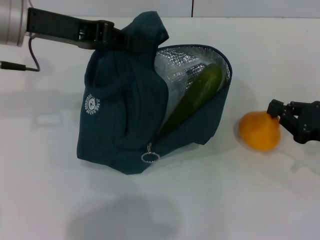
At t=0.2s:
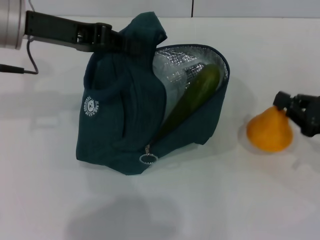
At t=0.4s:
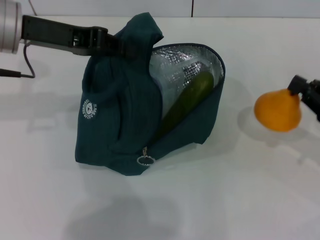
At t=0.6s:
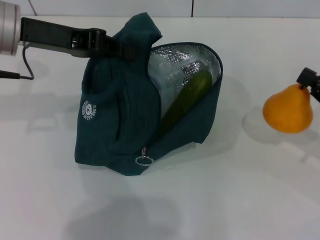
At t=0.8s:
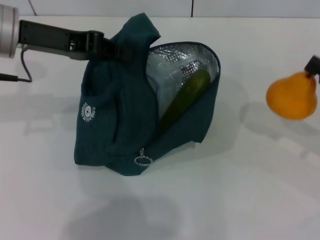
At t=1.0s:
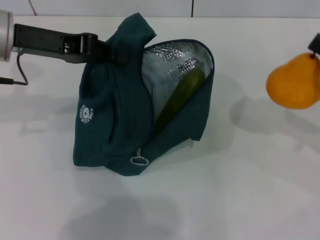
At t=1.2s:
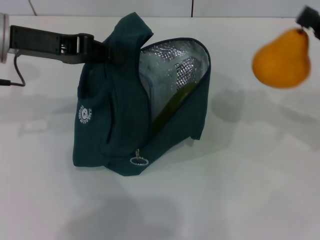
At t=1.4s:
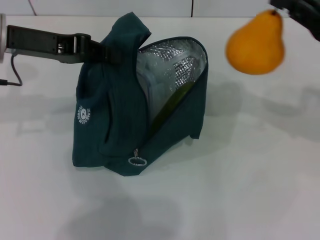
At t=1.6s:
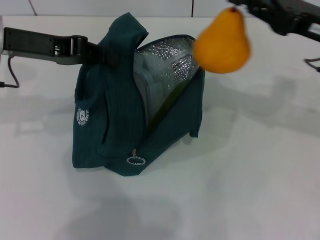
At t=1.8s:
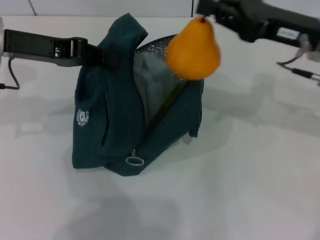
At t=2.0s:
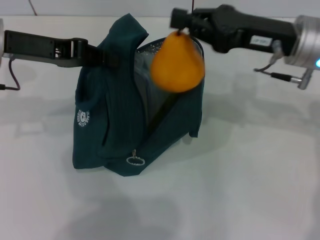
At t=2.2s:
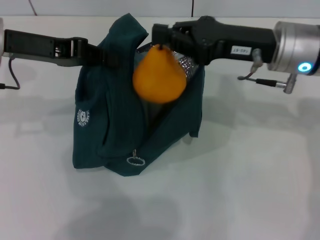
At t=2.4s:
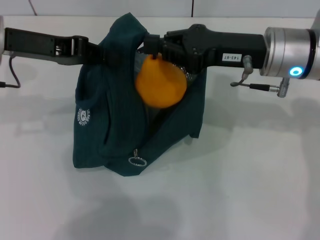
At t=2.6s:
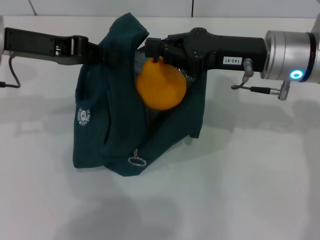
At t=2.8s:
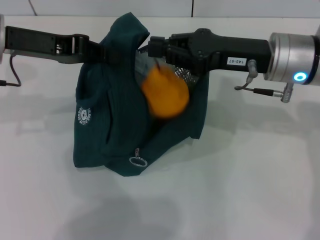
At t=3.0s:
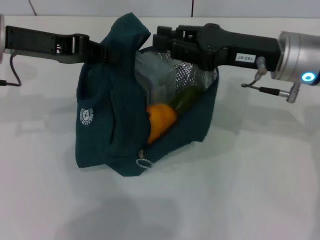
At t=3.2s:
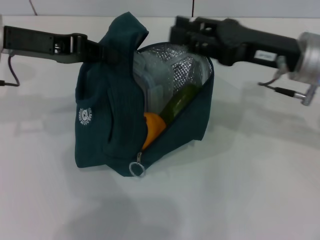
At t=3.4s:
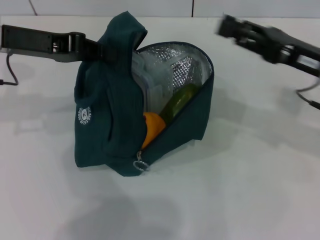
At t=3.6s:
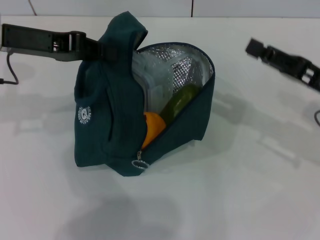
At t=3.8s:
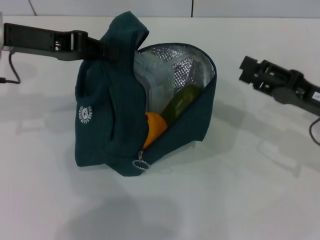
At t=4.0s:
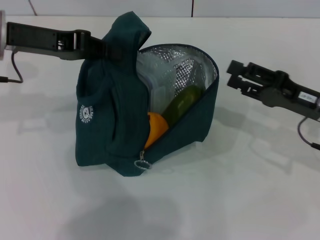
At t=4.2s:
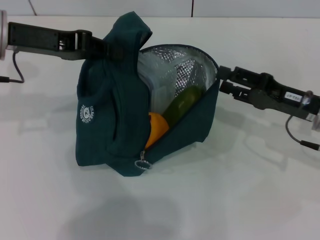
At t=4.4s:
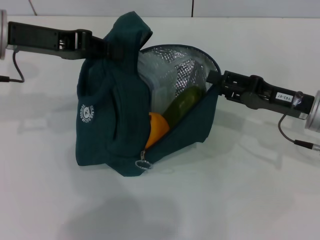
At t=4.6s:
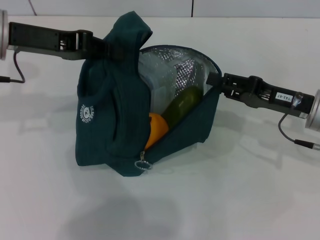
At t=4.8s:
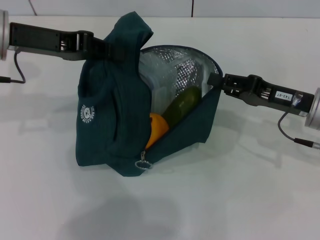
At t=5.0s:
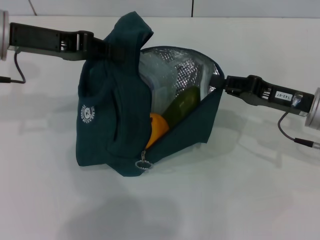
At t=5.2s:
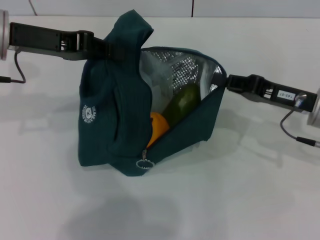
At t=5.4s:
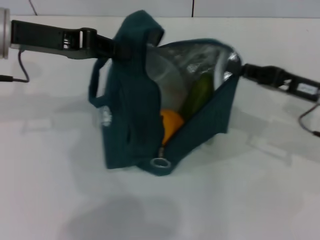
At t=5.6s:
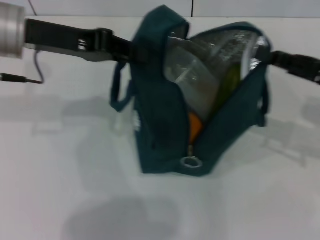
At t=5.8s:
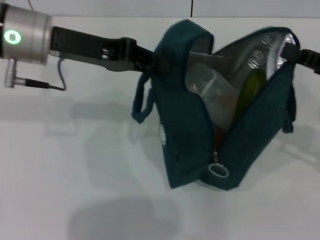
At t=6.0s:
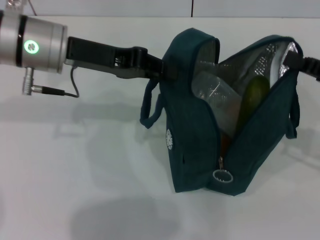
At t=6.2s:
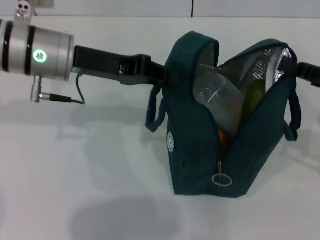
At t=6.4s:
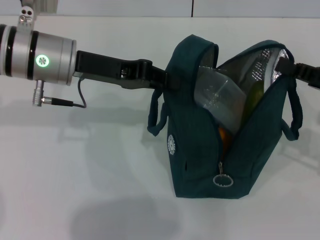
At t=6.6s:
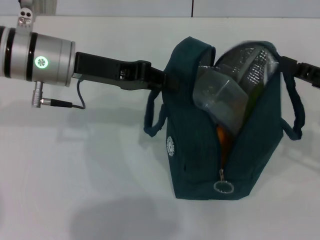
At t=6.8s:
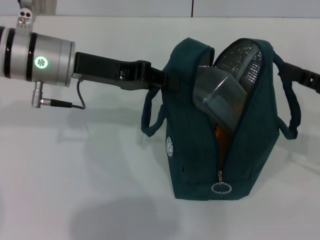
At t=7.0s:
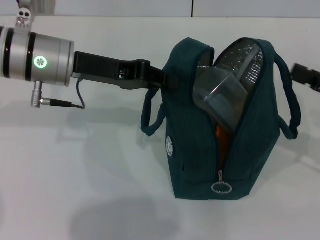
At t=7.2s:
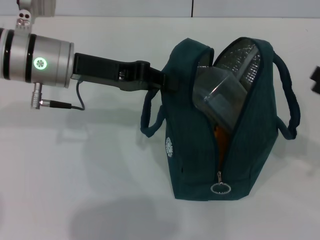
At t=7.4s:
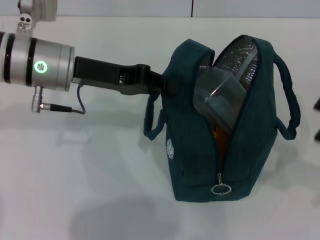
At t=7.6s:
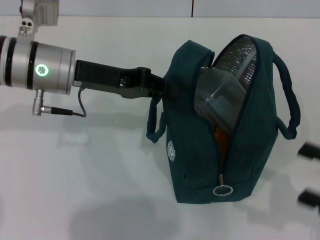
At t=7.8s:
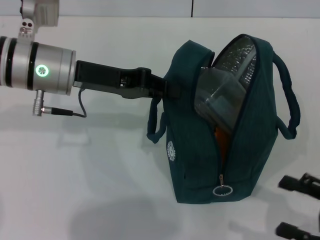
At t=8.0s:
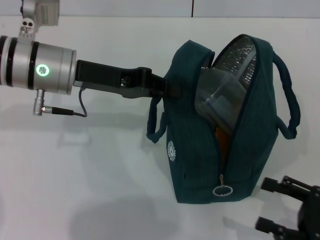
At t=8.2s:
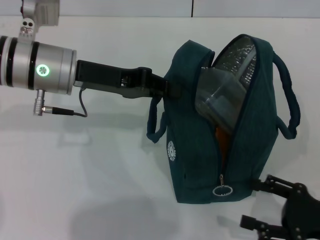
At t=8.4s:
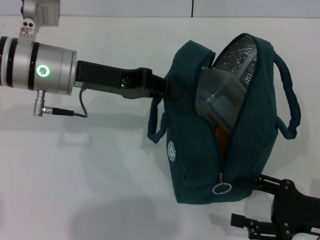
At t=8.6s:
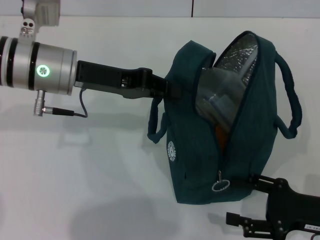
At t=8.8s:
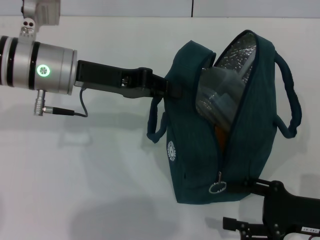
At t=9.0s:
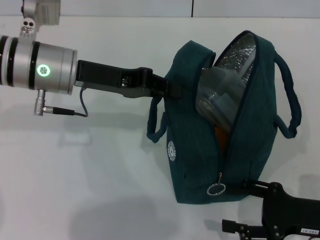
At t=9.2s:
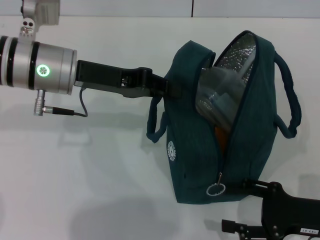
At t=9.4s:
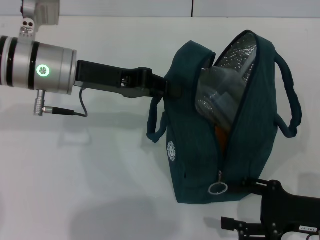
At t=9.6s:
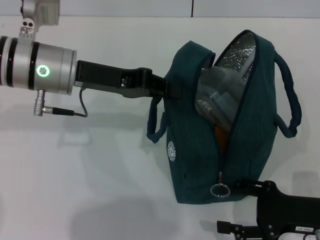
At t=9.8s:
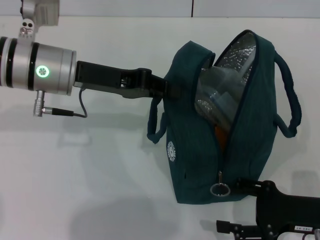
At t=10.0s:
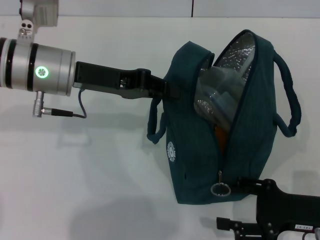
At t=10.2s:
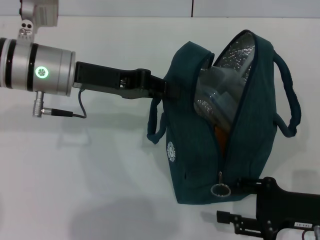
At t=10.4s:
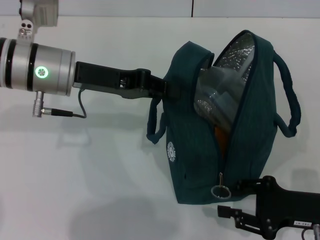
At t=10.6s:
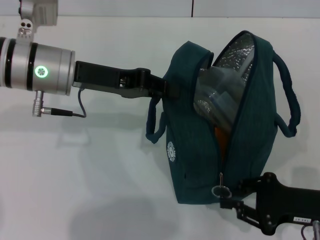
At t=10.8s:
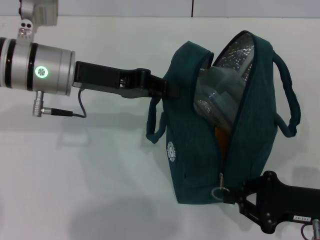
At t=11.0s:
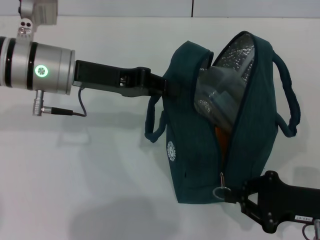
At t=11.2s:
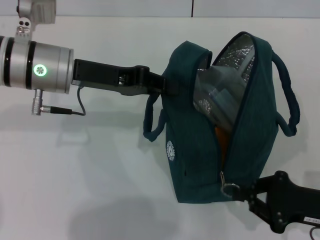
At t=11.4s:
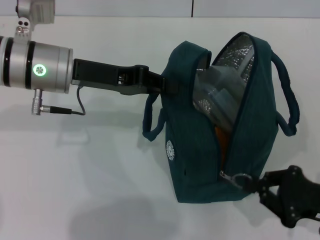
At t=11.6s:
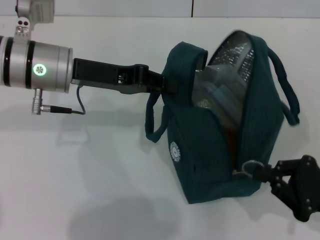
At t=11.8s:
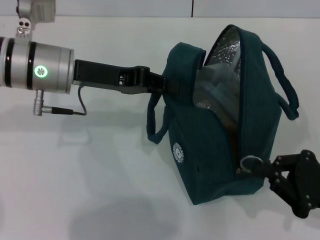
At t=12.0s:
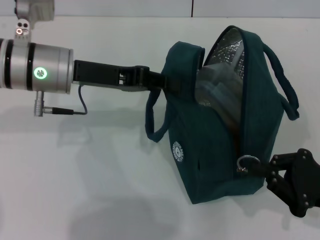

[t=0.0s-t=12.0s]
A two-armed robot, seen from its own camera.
Step, t=3.2s to t=6.6s: Hold the lunch bag with your right hand.
t=0.0s to t=1.6s: The right gripper shifts roughly 15 cm upward, to the left and forward.
t=1.6s to t=3.0s: The right gripper shifts some 5 cm to the left.
t=3.0s to t=4.4s: The right gripper goes some 10 cm downward and to the right, and opens its fingers.
t=4.4s to t=6.0s: The two grippers go roughly 5 cm to the right. The right gripper closes up.
t=6.0s to t=7.6s: The right gripper travels backward by roughly 10 cm, and opens its fingers.
t=7.6s to t=9.0s: The right gripper heads to the left and downward, covering about 10 cm.
t=9.0s to t=10.4s: The two grippers keep their place.
t=10.4s to t=12.0s: The right gripper closes up.

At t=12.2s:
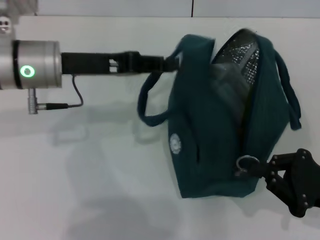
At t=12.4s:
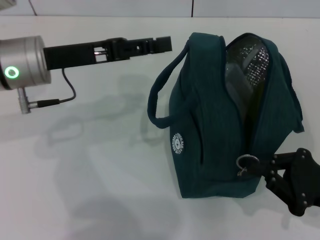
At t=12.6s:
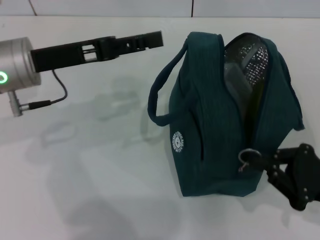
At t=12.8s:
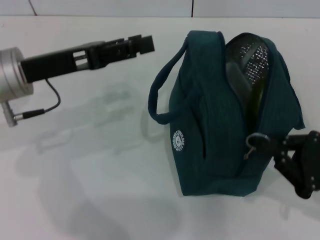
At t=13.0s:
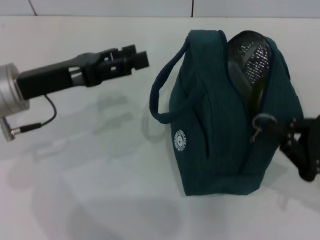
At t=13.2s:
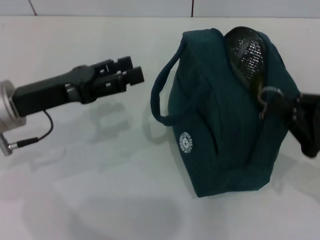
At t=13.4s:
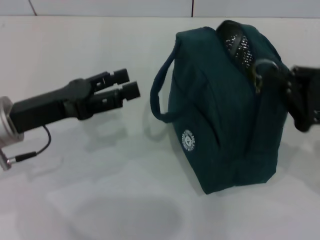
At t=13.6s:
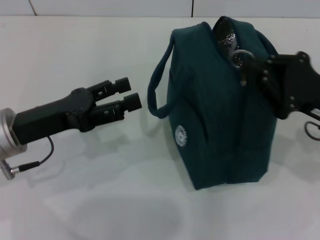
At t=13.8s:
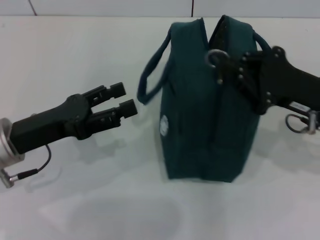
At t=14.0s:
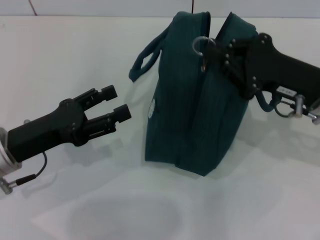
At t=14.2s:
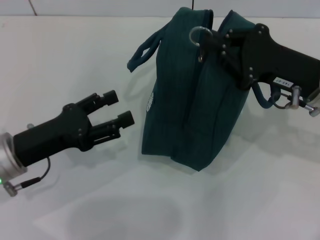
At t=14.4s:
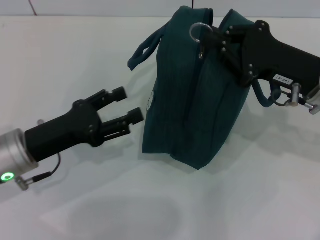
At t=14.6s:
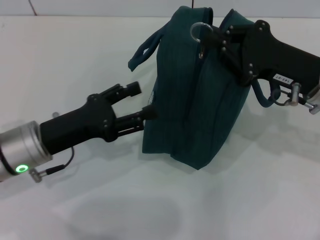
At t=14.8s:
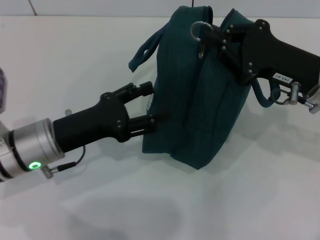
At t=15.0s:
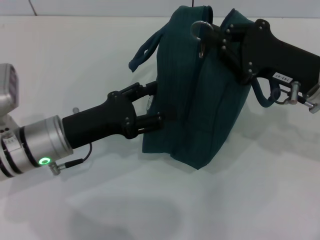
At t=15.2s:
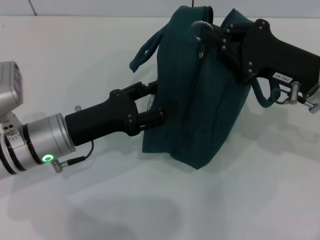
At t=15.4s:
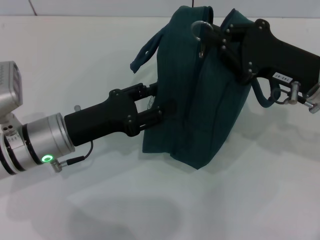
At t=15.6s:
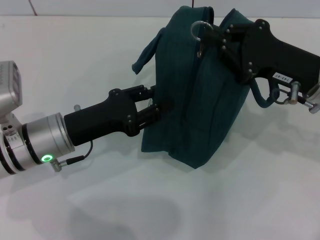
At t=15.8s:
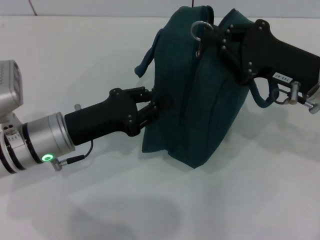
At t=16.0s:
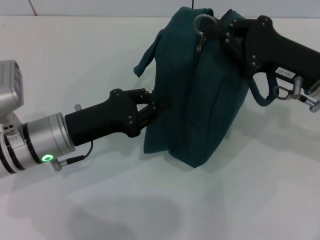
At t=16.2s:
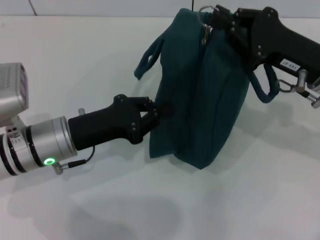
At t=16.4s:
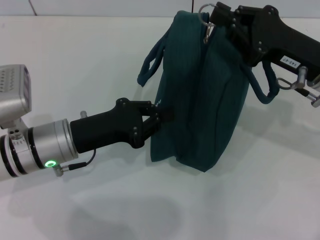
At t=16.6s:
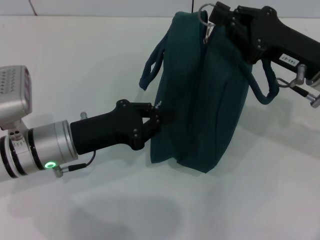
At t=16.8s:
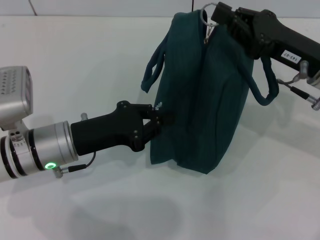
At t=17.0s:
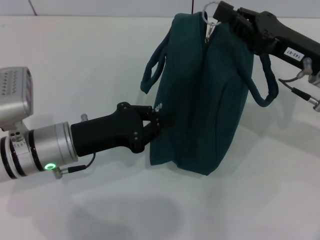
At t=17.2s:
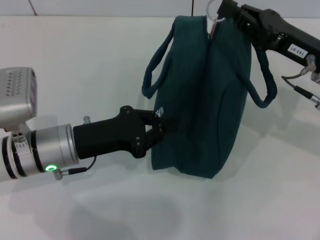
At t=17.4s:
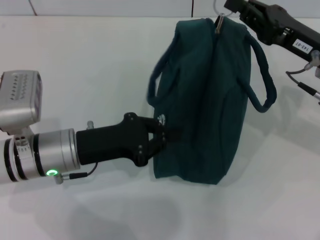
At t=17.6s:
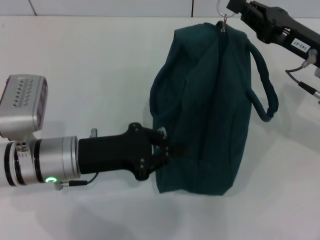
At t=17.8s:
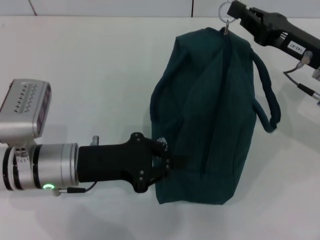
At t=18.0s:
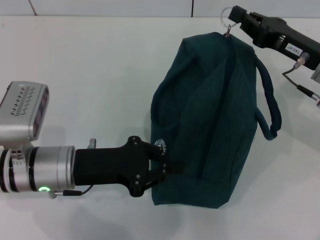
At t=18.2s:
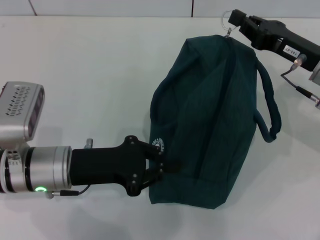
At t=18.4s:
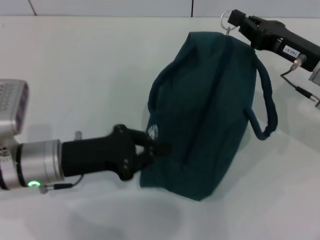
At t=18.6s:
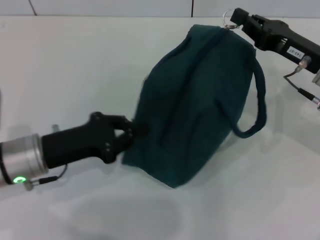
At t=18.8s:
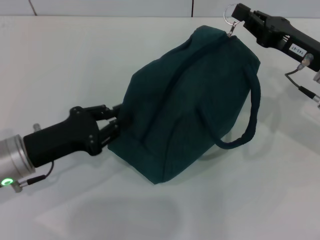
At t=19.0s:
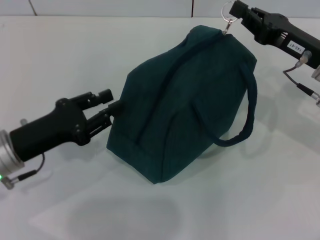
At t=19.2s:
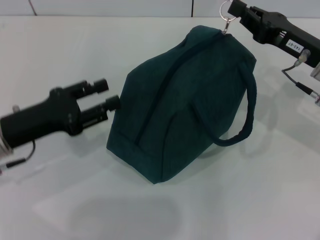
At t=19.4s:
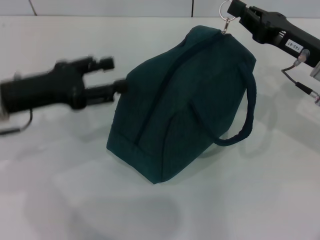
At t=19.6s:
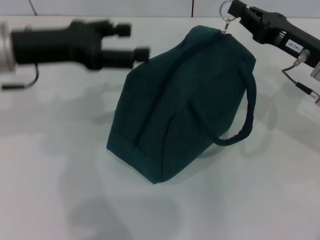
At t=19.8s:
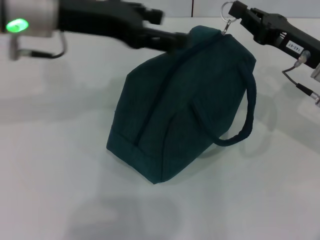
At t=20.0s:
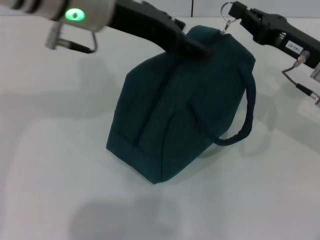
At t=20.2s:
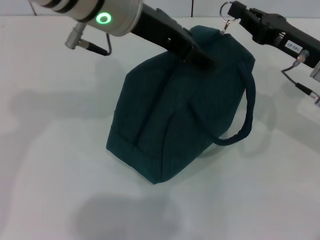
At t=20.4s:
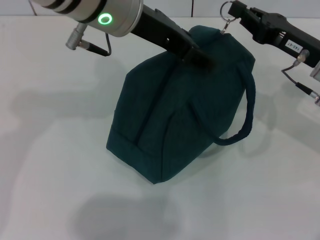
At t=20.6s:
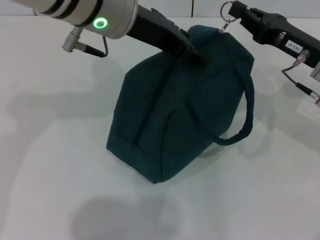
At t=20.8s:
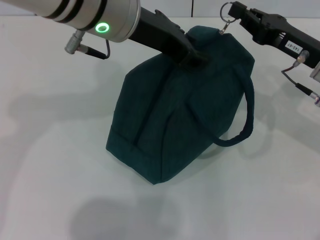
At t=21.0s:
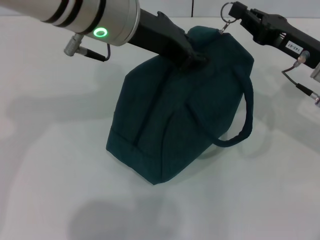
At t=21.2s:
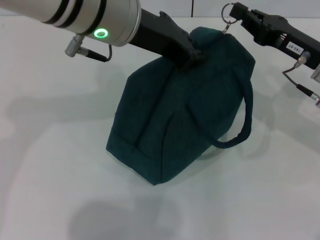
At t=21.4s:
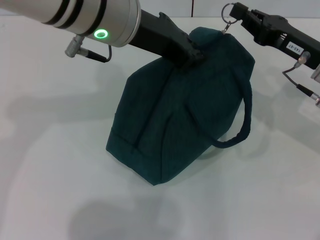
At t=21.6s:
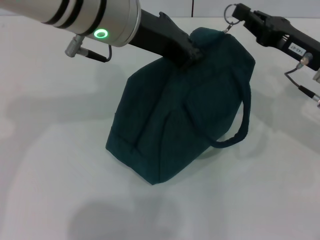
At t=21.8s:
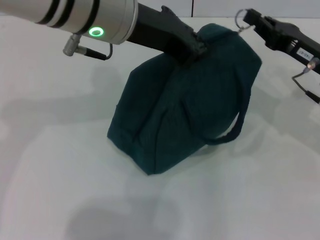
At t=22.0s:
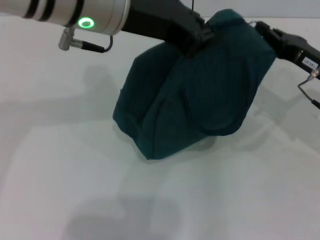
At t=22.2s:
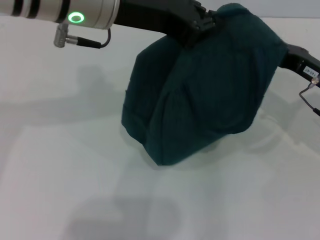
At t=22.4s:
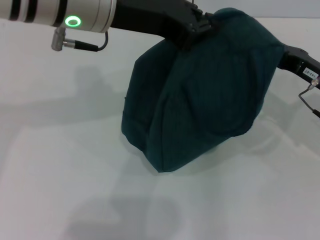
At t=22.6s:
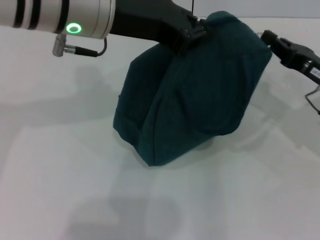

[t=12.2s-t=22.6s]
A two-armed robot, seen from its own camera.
Step, t=12.2s to t=22.6s: Zip up the lunch bag with your right hand.
t=12.2s to t=13.6s: The right gripper is displaced forward and upward by roughly 10 cm; the left gripper heads backward and downward, covering some 10 cm, and opens its fingers.
t=13.6s to t=15.2s: The right gripper changes place by roughly 5 cm. The left gripper ends up roughly 5 cm from where it was.
t=15.2s to t=16.6s: The left gripper closes its fingers.
t=18.2s to t=19.6s: The left gripper is displaced upward and forward by about 15 cm, and opens.
t=19.6s to t=21.2s: The left gripper shifts approximately 15 cm to the right, and closes up.
t=21.2s to t=22.6s: The left gripper closes its fingers. The right gripper shifts by roughly 5 cm.
